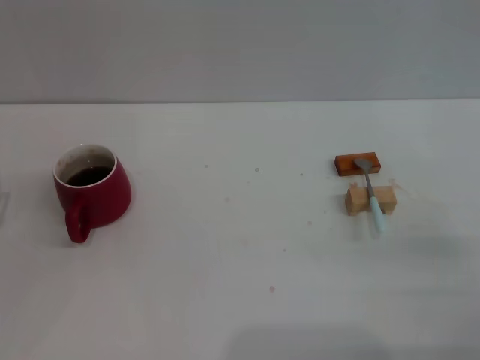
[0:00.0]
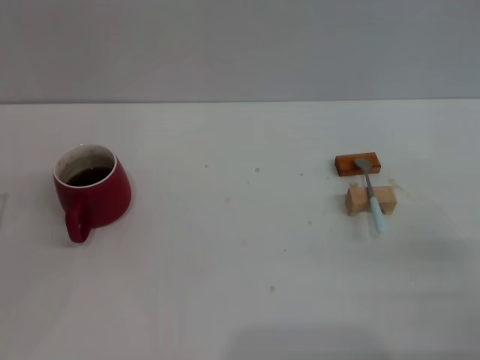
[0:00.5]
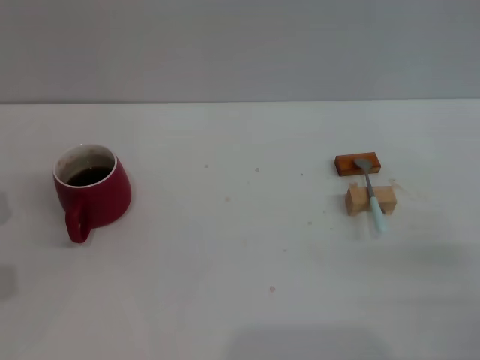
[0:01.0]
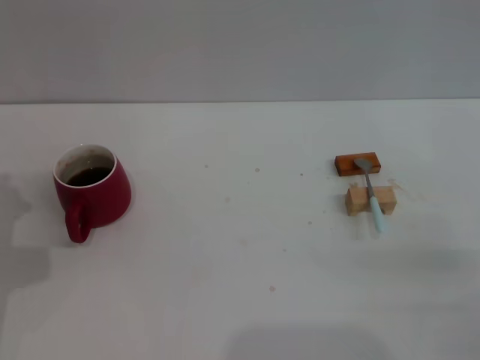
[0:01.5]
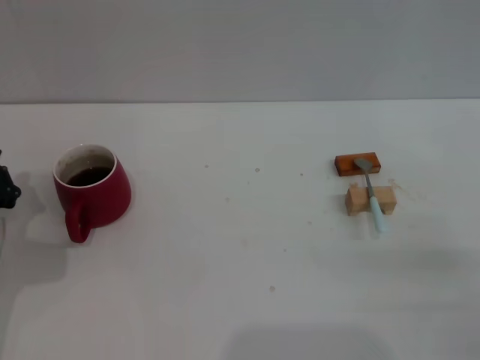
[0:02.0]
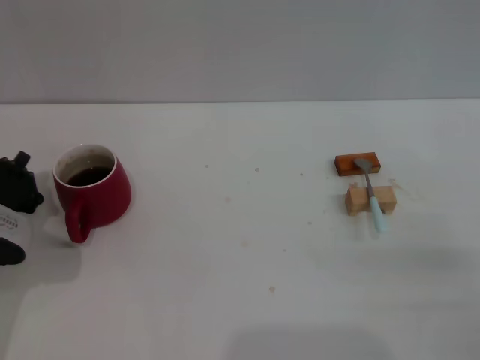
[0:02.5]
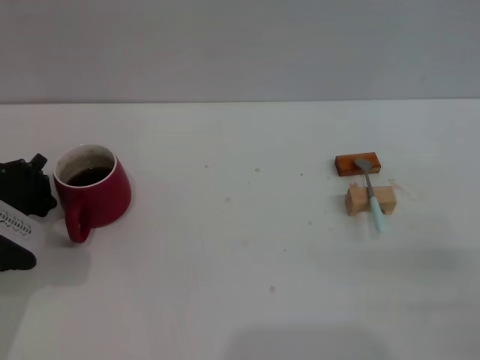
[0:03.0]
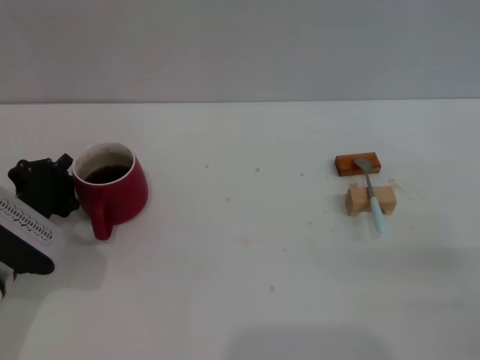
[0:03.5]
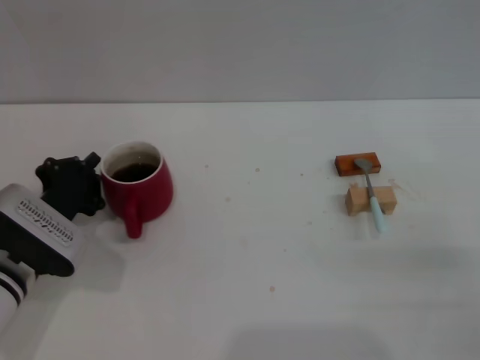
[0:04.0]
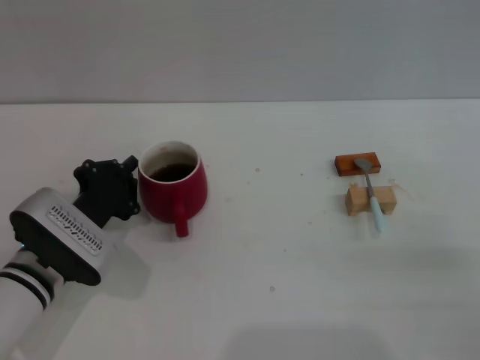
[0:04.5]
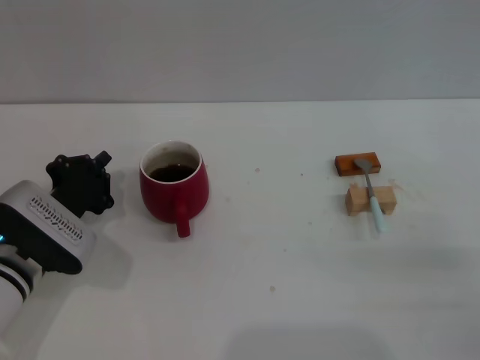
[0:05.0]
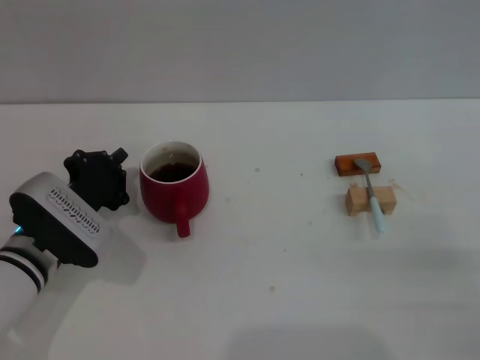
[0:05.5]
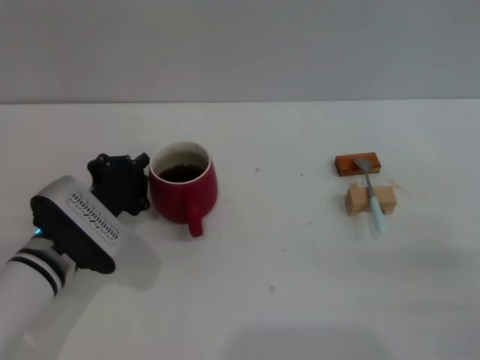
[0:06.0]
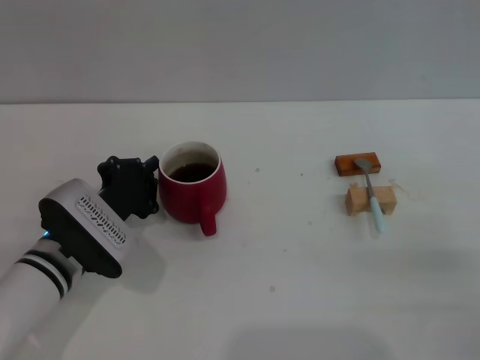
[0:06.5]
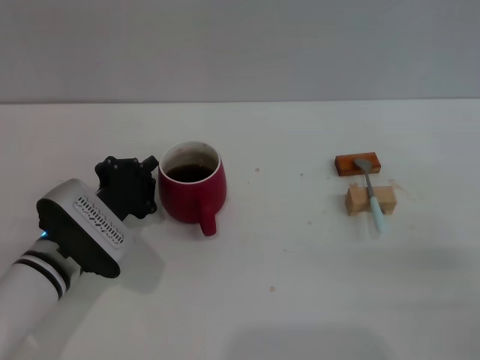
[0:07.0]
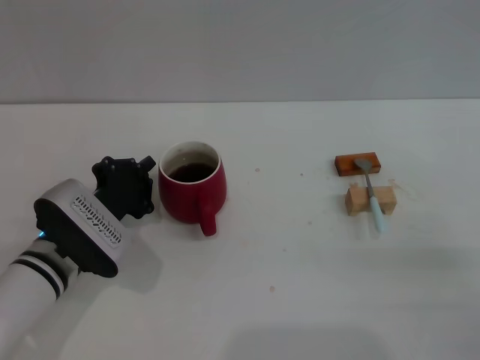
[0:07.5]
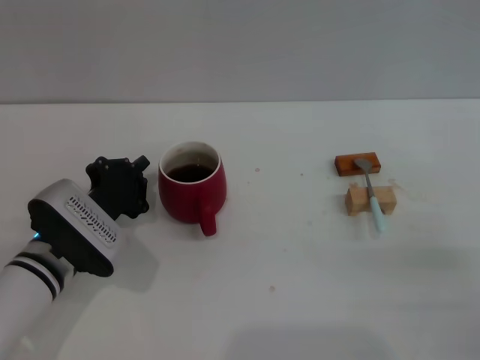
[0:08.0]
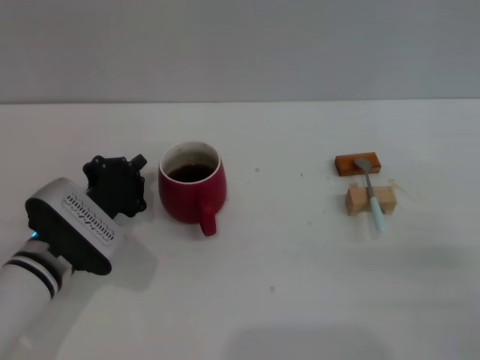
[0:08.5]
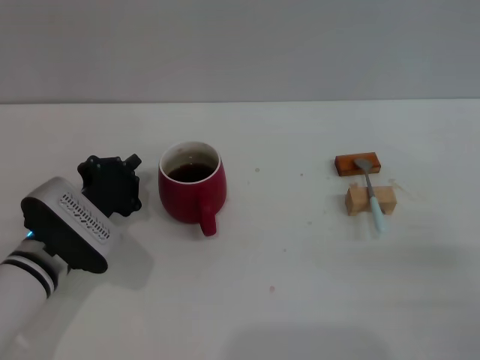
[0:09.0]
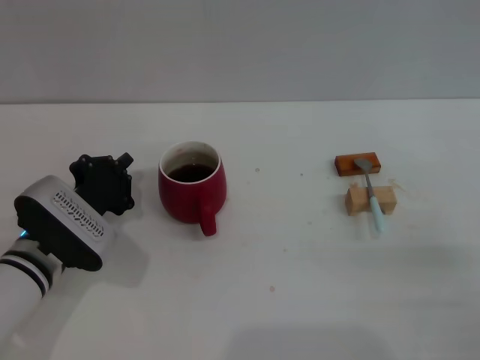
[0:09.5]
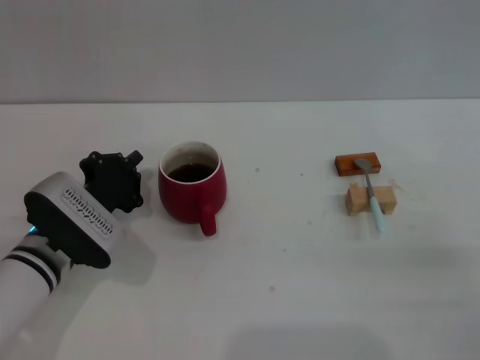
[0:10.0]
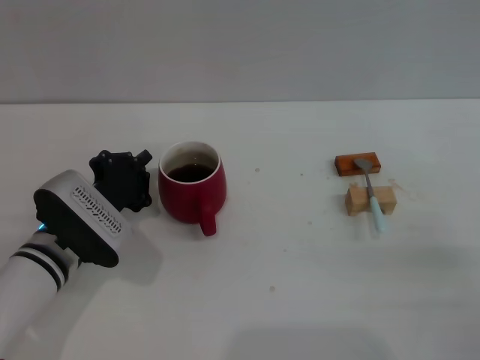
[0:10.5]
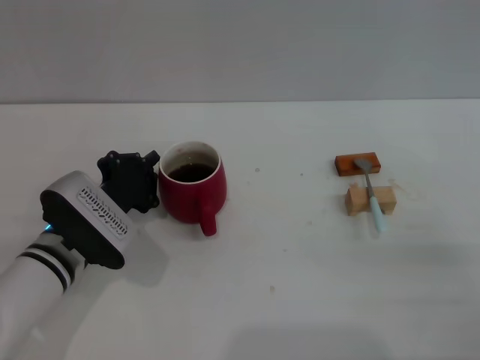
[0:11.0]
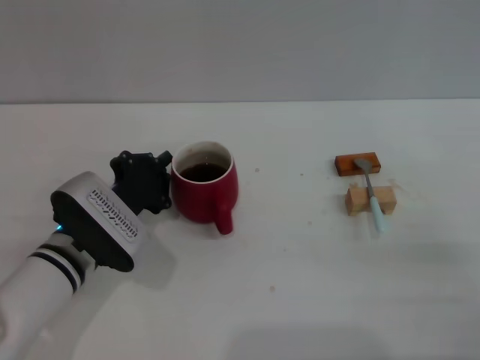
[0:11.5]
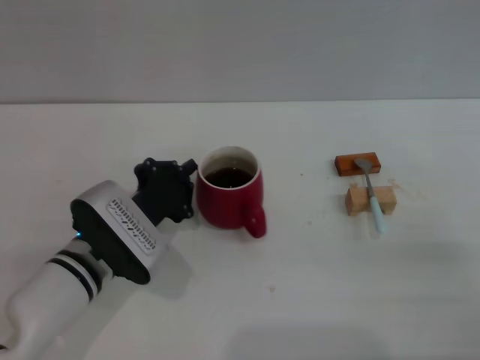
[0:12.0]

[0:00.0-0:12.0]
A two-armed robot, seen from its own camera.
Task of the whole recording: Move the red cup to the center, lift the blue spoon, stir it three times in the cup, and put the spoon into the cup.
0:02.0 to 0:04.0: The left gripper travels to the right by some 5 cm.
0:04.0 to 0:06.0: The grippers stay close to where they were, moving slightly.
0:06.0 to 0:08.0: Both grippers stay about where they are.
0:08.0 to 0:10.0: Both grippers stay put.
0:10.0 to 0:12.0: There are only small adjustments of the grippers.

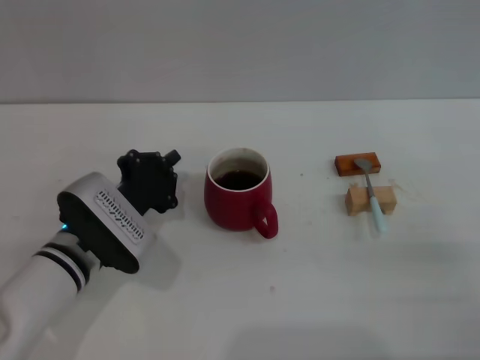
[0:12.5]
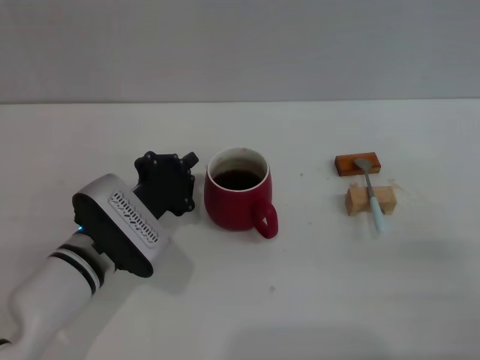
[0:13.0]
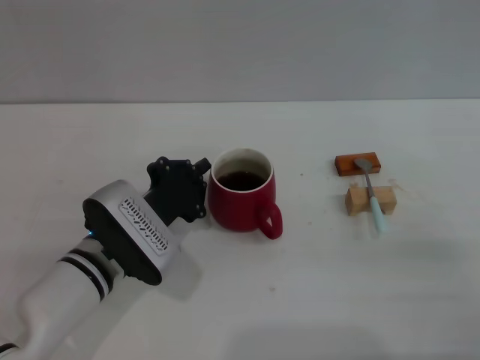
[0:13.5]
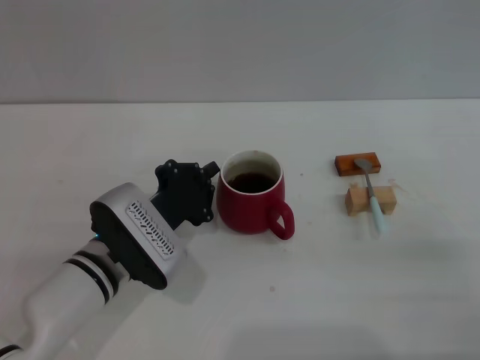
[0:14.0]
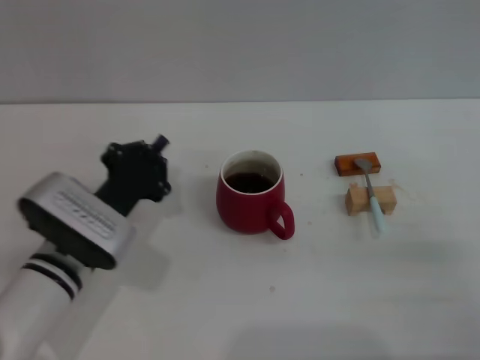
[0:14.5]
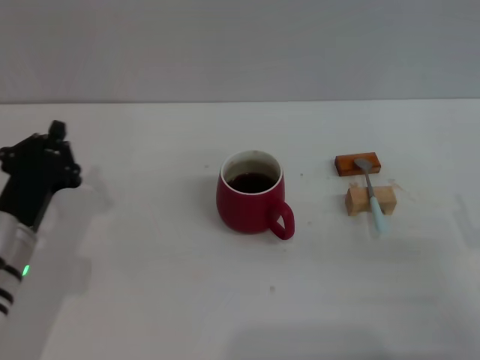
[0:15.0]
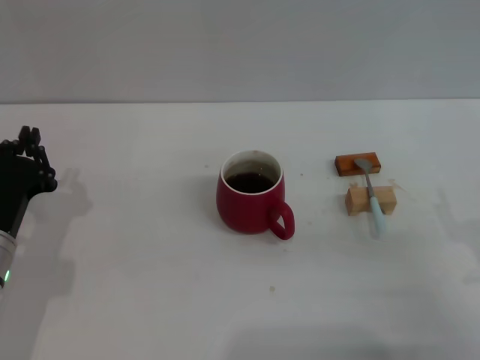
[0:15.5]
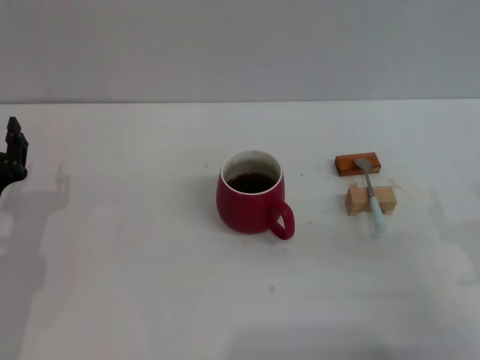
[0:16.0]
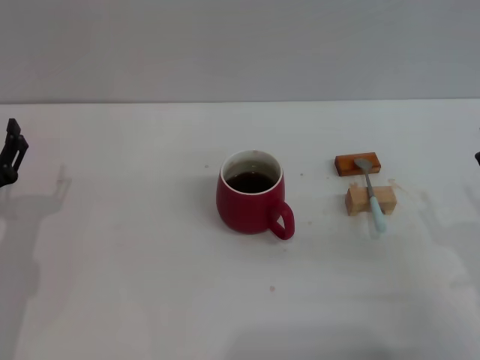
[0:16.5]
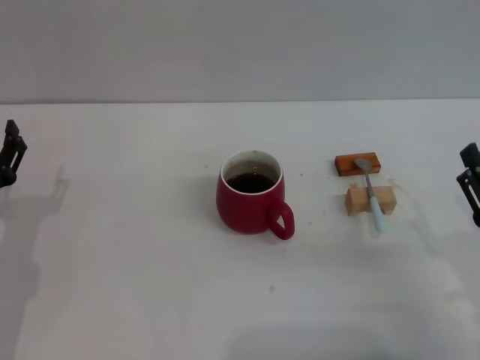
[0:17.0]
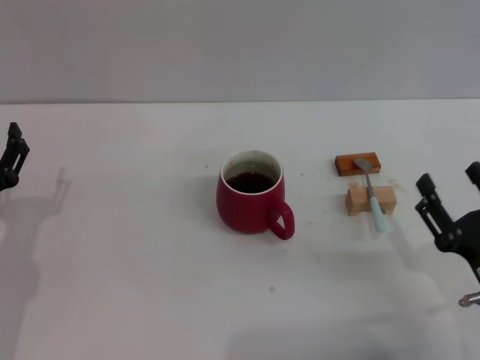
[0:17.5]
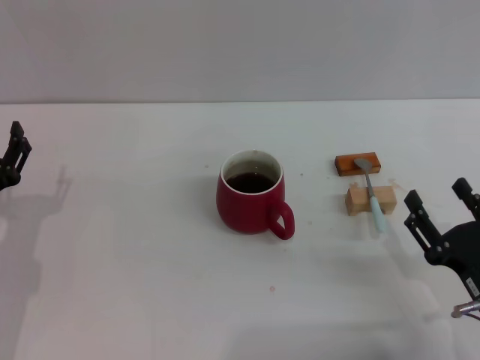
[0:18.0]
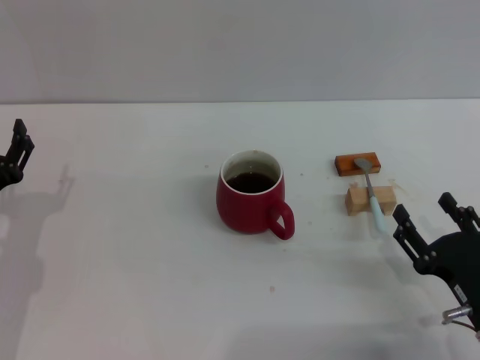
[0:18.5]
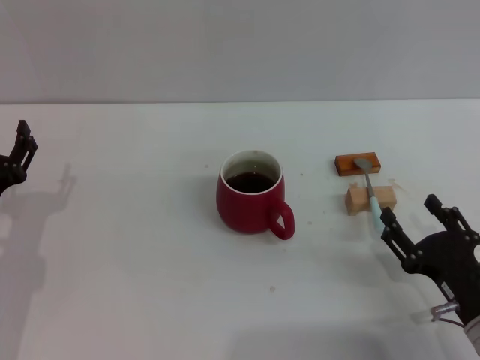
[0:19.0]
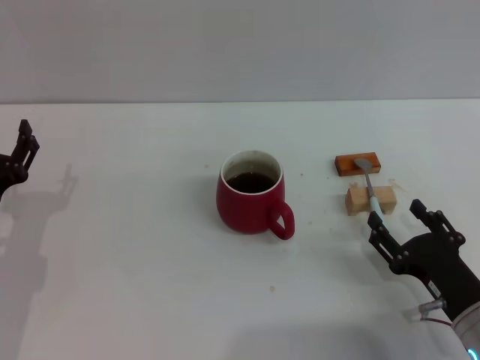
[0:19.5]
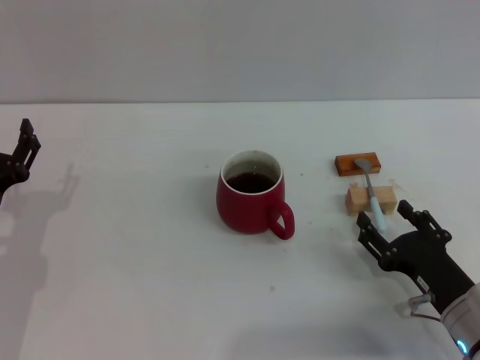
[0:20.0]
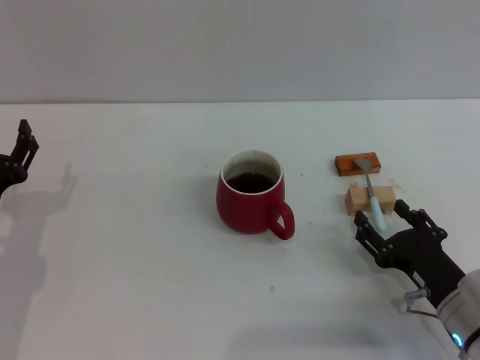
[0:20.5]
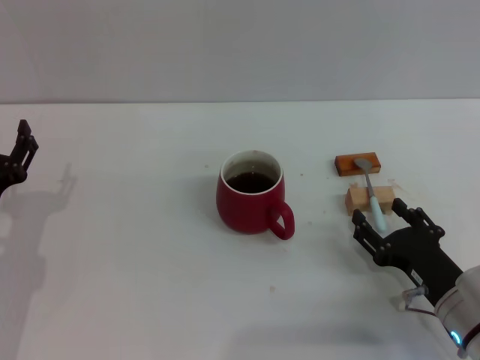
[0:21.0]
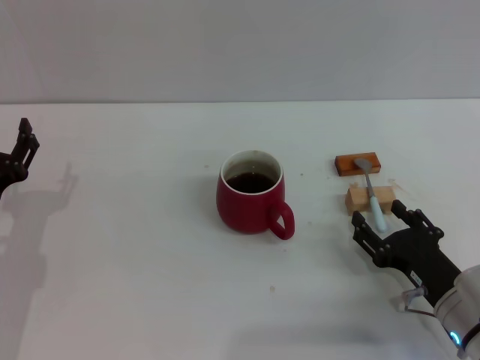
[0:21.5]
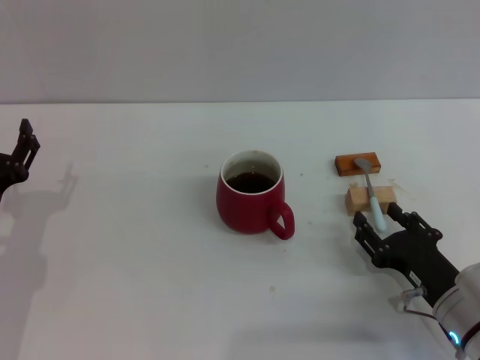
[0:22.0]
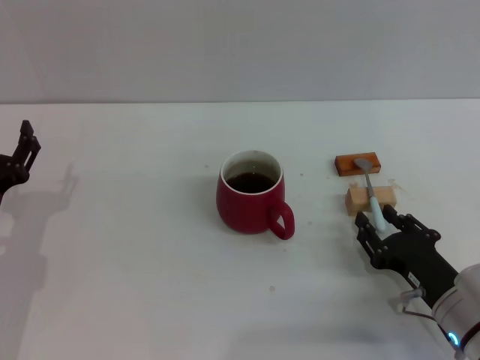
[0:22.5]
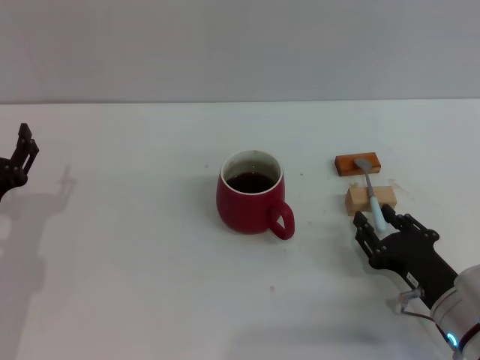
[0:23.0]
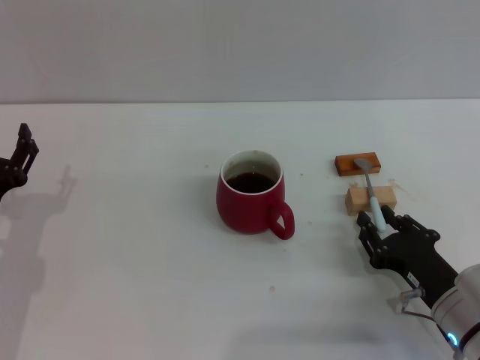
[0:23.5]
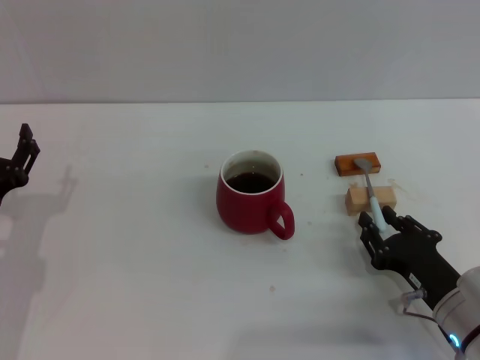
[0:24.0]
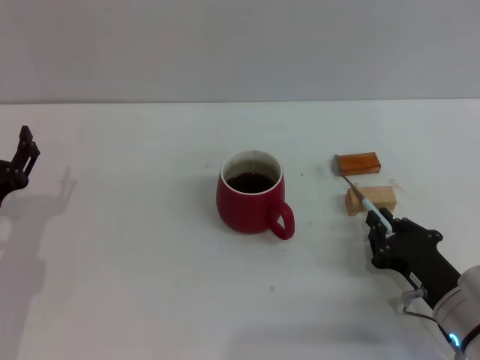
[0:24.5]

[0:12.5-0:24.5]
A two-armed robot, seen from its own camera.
Task of the whole recording: Move the red cup to the center, lift the blue spoon, stir it three times in the cup, and put the spoon into the cup.
Step, 0:12.5 to 0:14.5: Move the cup with coffee to the center of view with the left gripper.
0:12.5 to 0:14.5: The grippers stay close to where they were, moving slightly.
0:14.5 to 0:16.5: The left gripper travels to the left by some 10 cm, and opens up.
0:16.5 to 0:18.5: The right gripper ends up approximately 5 cm from where it was.
0:18.5 to 0:20.5: The grippers stay close to where they were, moving slightly.
0:20.5 to 0:22.5: The right gripper closes.
0:22.5 to 0:24.5: The right gripper closes up.

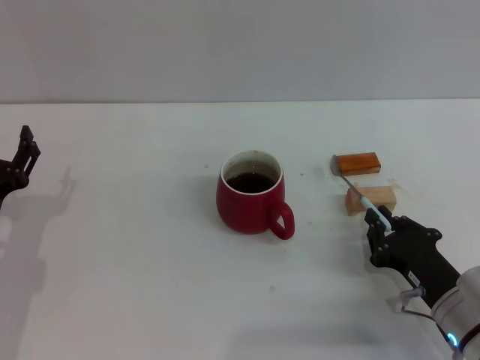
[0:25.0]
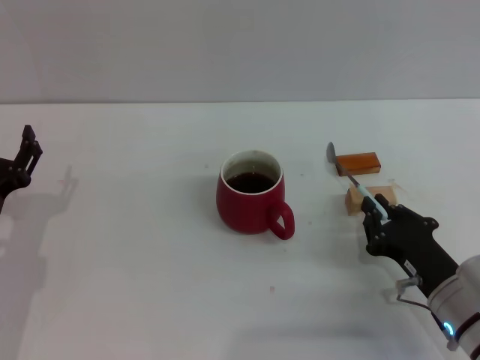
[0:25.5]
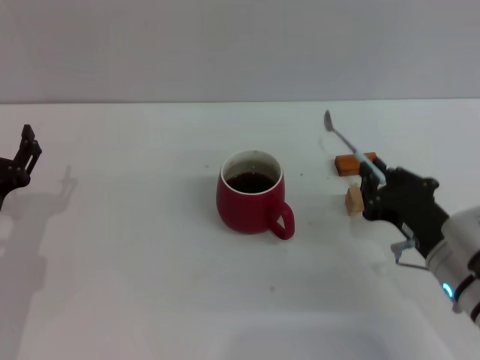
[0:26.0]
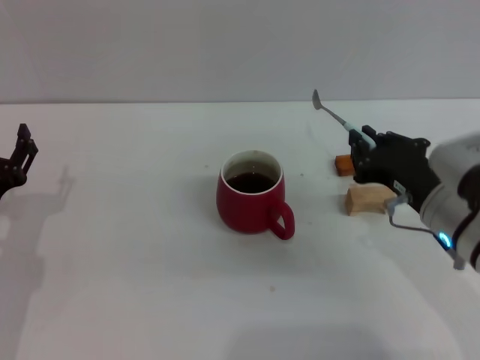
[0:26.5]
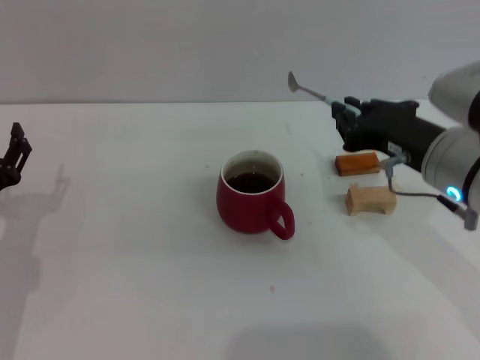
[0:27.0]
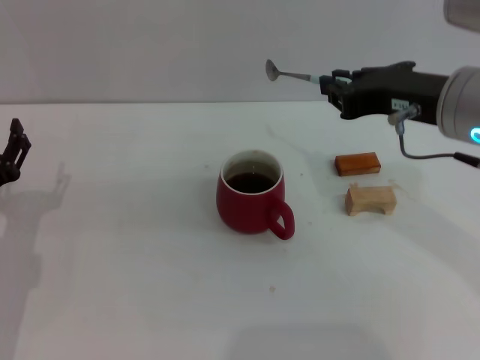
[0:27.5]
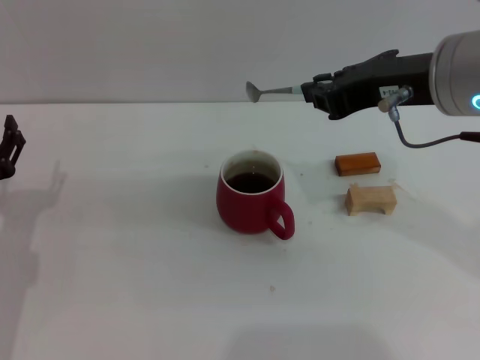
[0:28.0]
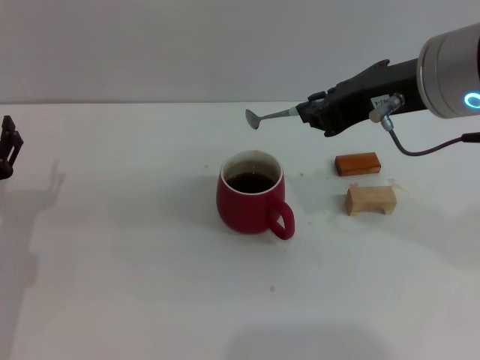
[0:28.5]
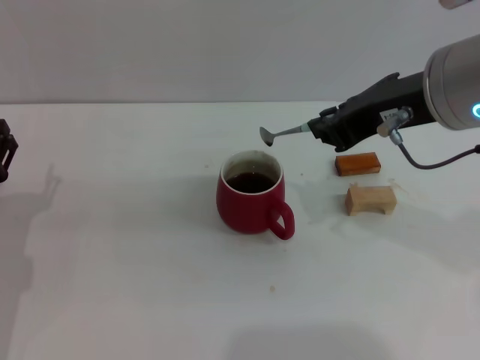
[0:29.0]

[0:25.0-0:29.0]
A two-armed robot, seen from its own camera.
Task of the whole recording: Move the red cup to the center, lift the blue spoon, stir it three times in the cup, and put the spoon into the cup.
0:25.0 to 0:27.0: The right gripper goes approximately 20 cm upward and forward.
0:27.0 to 0:29.0: The right gripper travels upward by approximately 10 cm.
